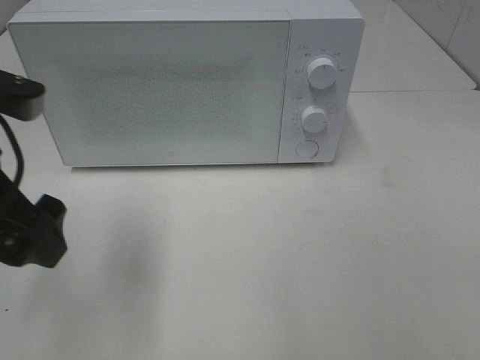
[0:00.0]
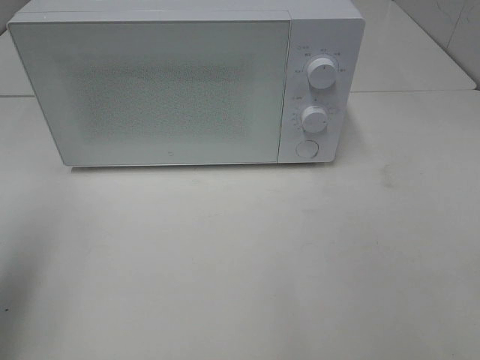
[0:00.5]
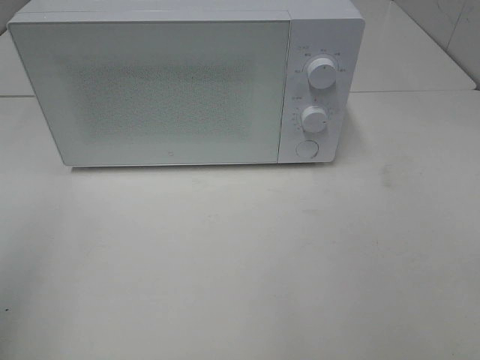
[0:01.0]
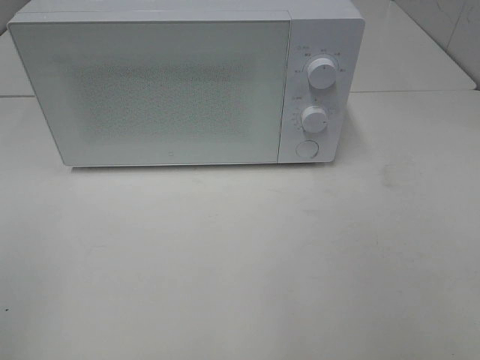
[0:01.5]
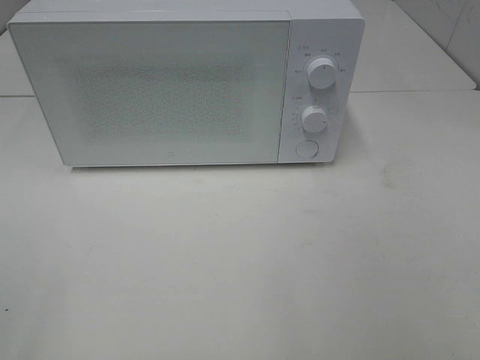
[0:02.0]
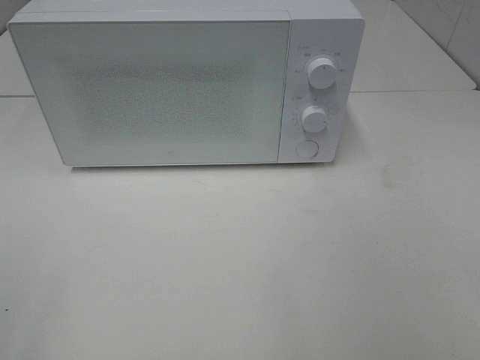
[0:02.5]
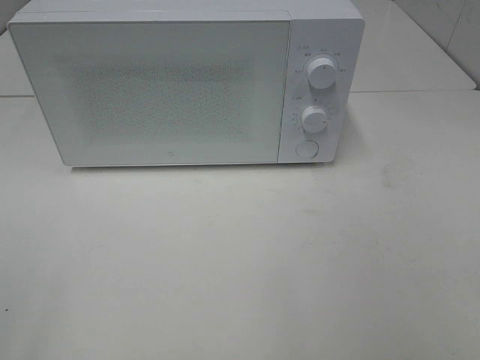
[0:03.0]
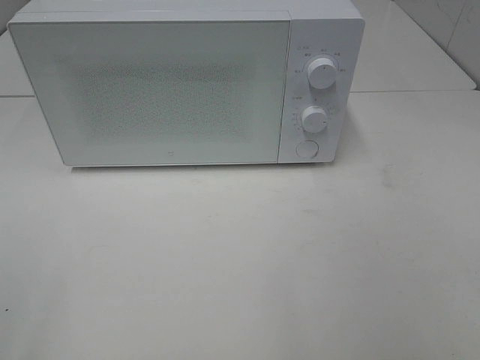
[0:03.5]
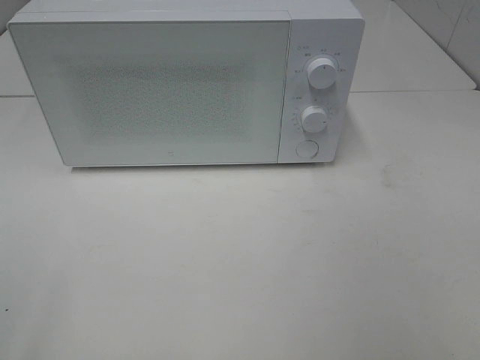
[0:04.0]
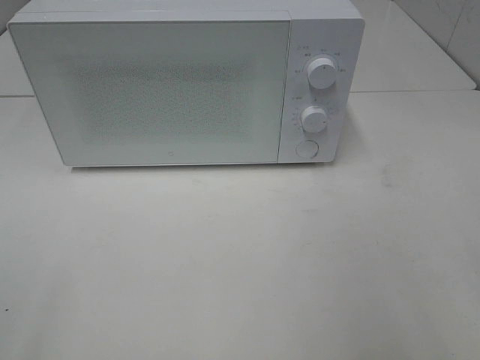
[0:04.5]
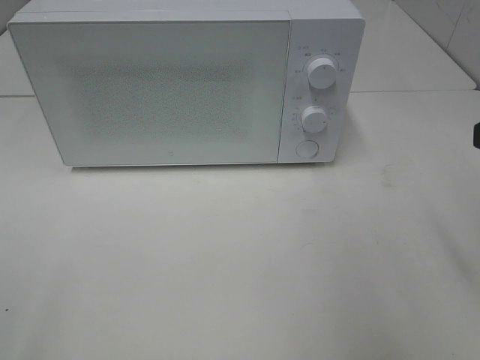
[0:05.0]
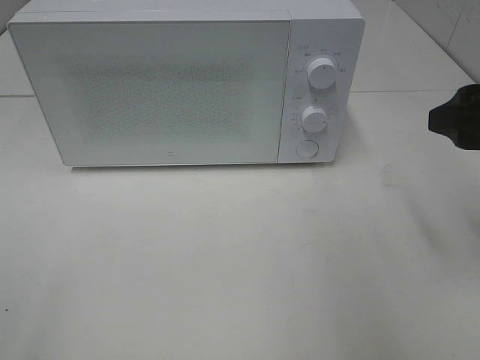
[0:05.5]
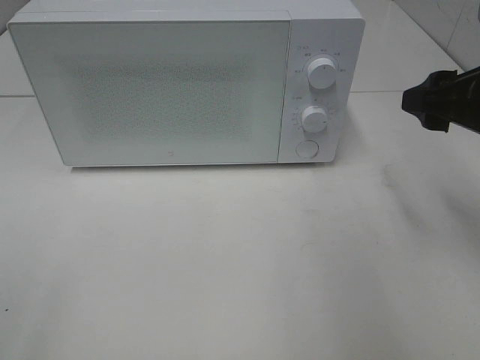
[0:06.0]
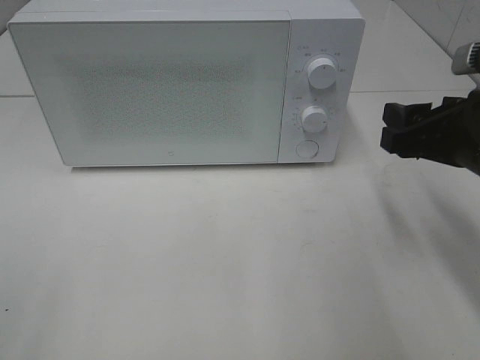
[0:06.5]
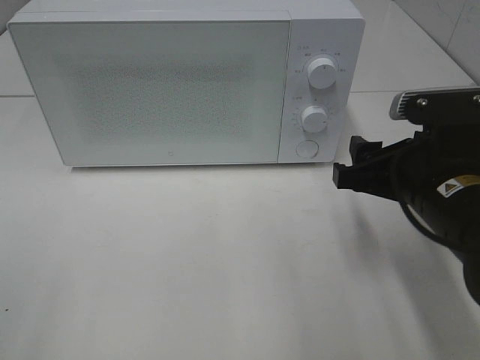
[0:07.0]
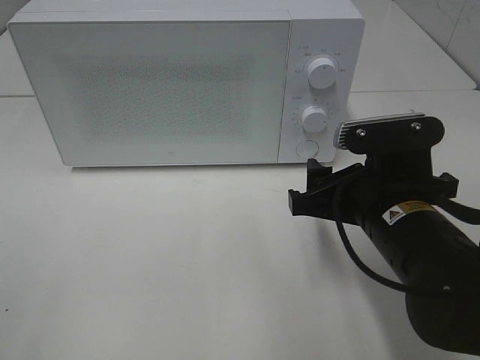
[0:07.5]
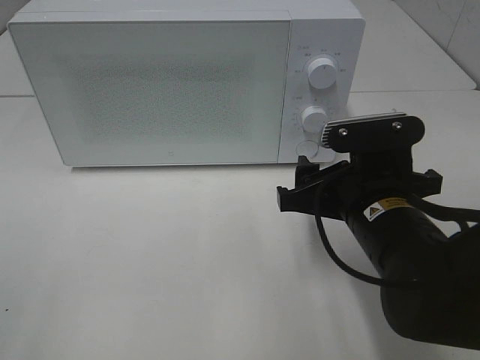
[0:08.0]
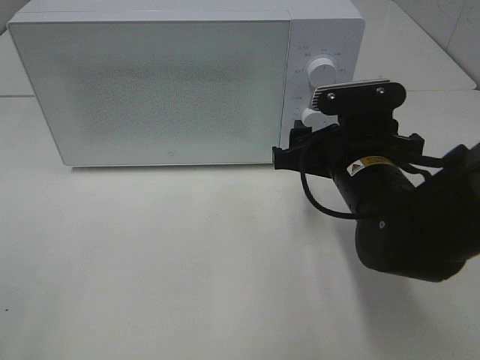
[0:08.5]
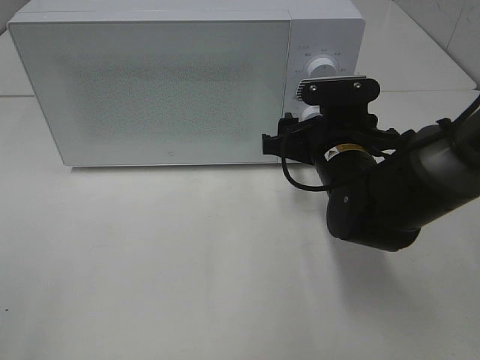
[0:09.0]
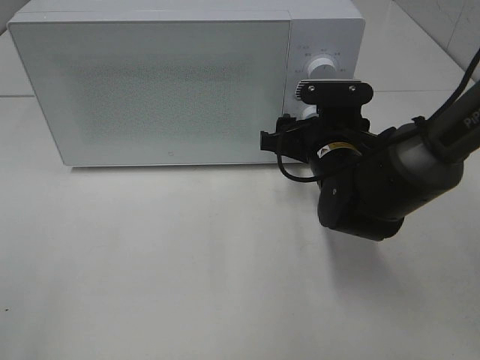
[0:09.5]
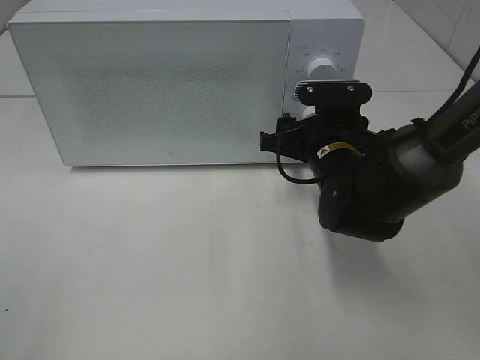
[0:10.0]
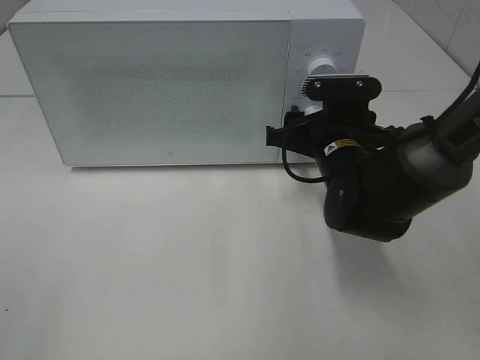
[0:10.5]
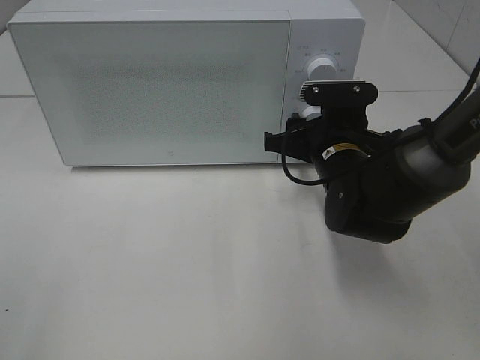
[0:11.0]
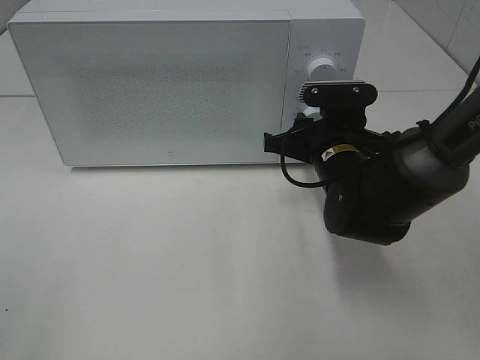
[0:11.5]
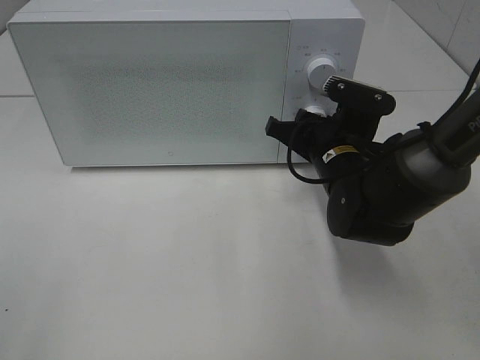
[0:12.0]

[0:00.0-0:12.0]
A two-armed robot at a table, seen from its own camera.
Task of the whole recording: Heat the burger.
0:00.0 to 0:02.0: The left gripper is displaced backward and to the left by about 25 cm.
0:04.0 to 0:06.0: The right gripper heads forward, covering approximately 20 cm.
0:06.0 to 0:08.0: The right gripper shifts some 15 cm to the left and downward.
0:08.0 to 0:10.0: The right gripper travels forward by about 10 cm.
0:10.0 to 0:12.0: The right gripper closes its fingers.

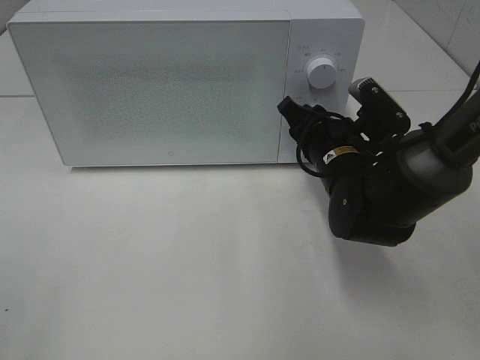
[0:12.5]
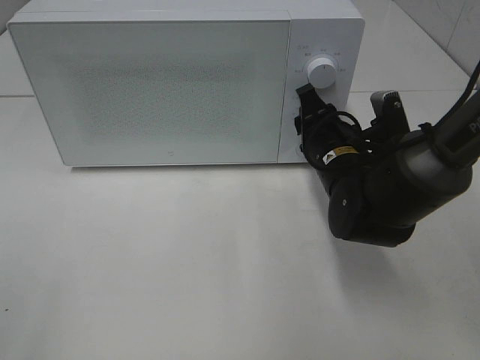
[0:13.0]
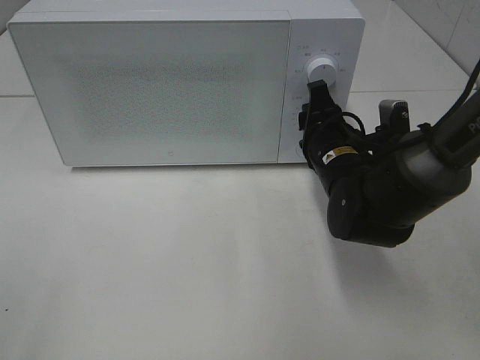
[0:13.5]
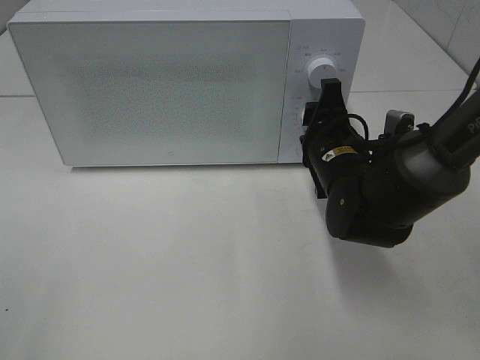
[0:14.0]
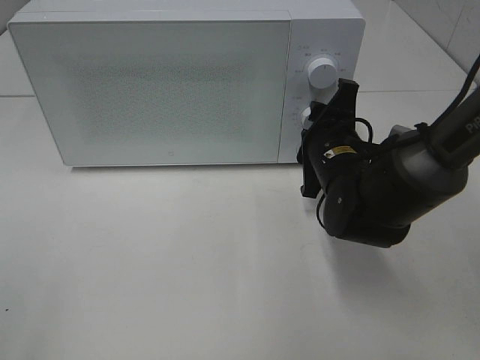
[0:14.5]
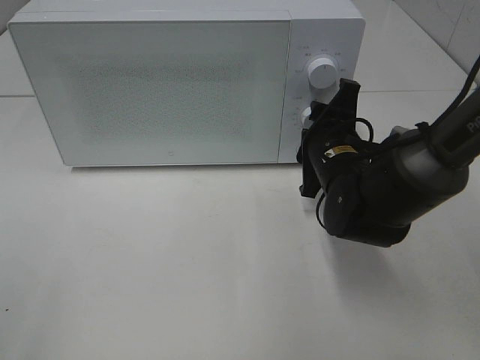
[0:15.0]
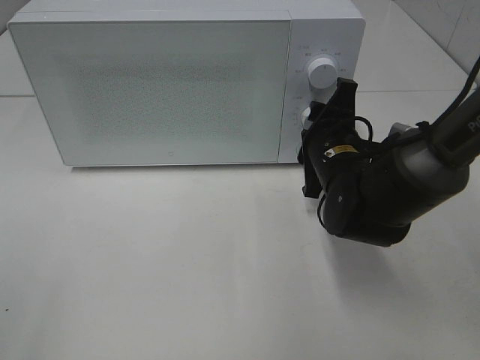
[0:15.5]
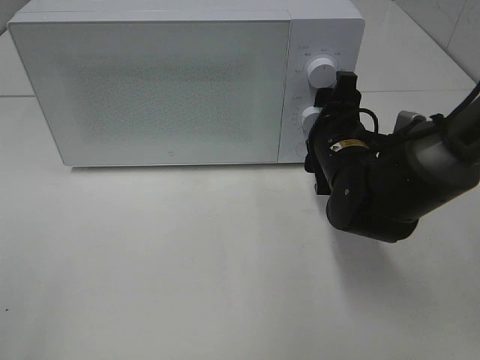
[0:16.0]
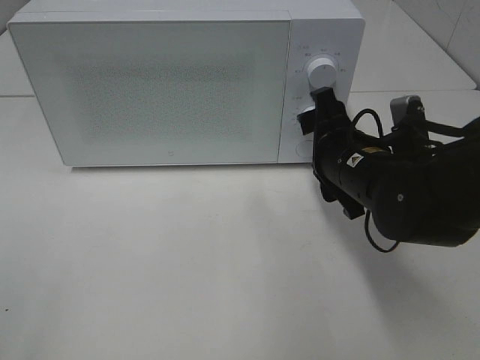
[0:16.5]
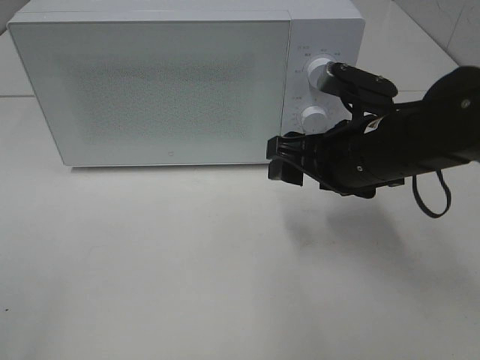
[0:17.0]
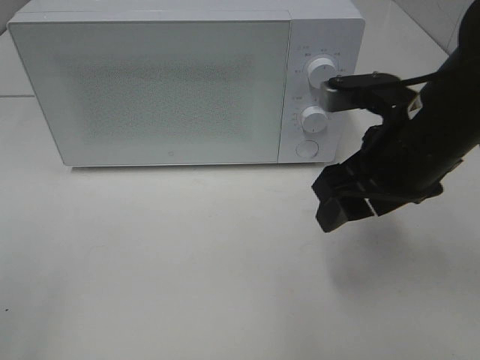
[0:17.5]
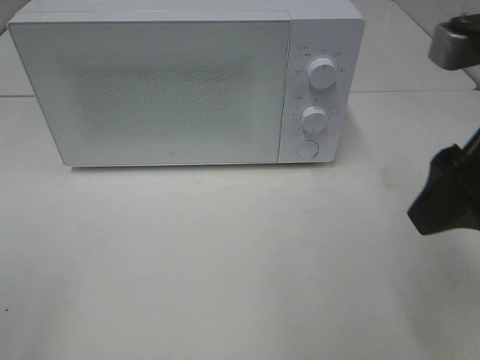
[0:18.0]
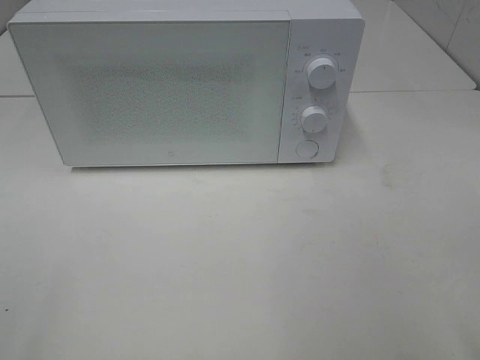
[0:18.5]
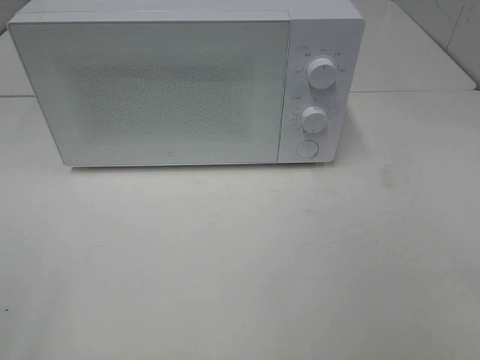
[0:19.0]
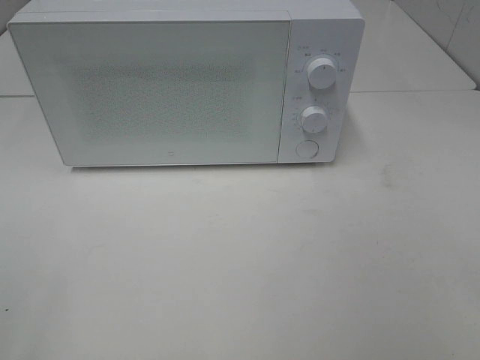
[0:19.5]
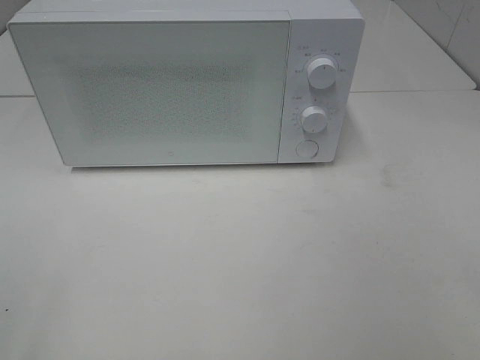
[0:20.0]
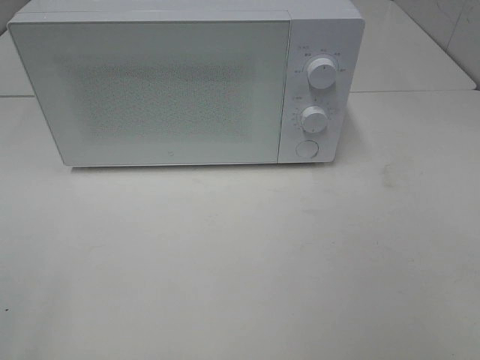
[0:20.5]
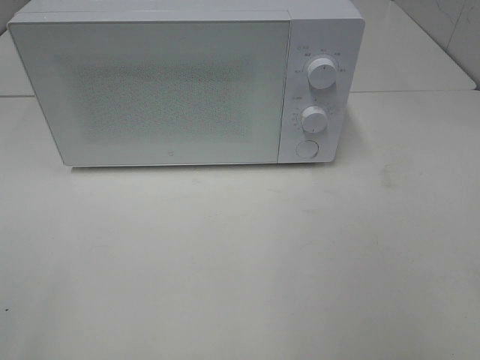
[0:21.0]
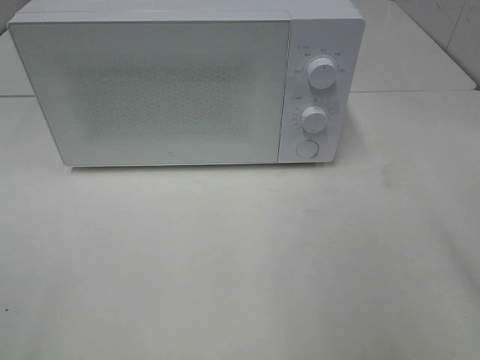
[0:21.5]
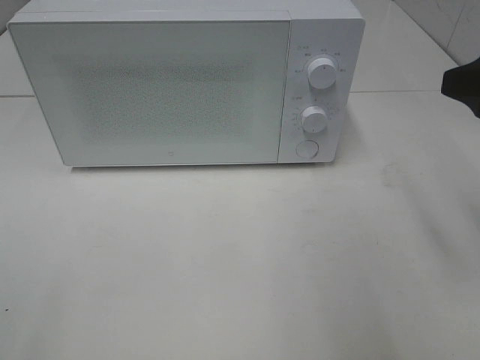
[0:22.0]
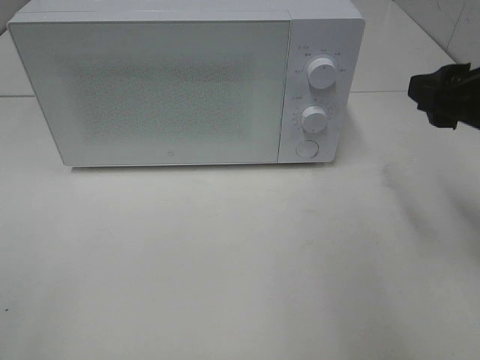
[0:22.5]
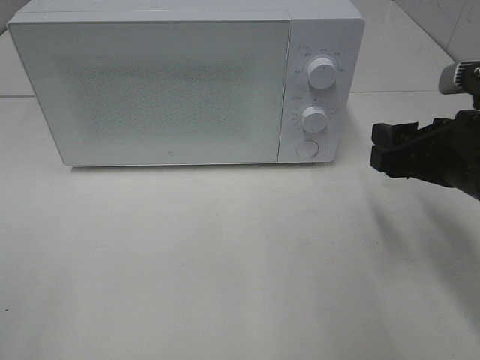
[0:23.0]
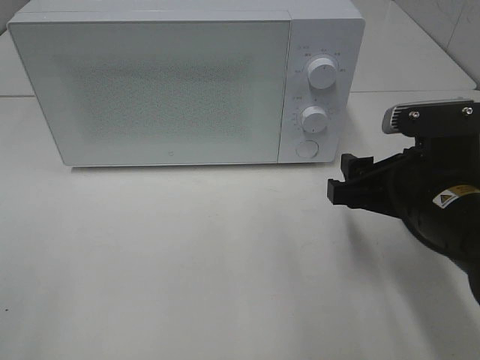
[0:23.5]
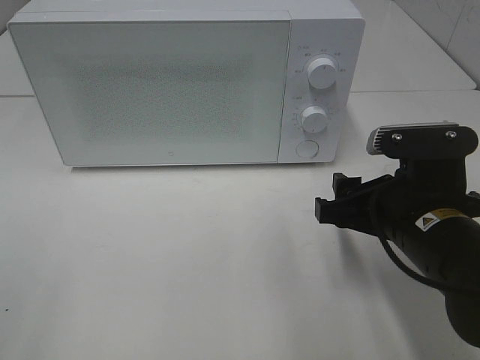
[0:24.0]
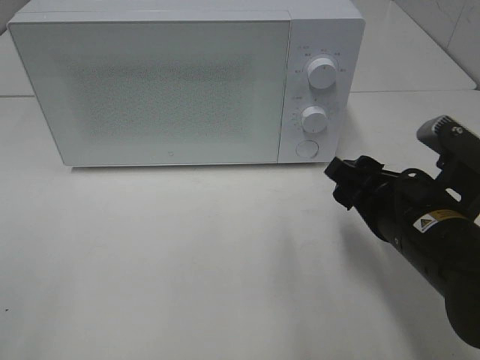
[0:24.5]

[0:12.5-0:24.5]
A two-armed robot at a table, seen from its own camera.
Task of the whole recording: Heat the burger.
Step, 0:12.5 to 0:16.0: Right hand: twist timer button.
0:14.5 to 0:16.5: The right gripper moves about 5 cm, and opens its fingers.
0:16.5 to 0:18.5: The right gripper is displaced backward, upward and to the right by approximately 30 cm.
0:20.5 to 0:22.5: The right gripper shifts about 20 cm forward.
0:22.5 to 0:24.5: The right gripper shifts about 15 cm downward and to the left.

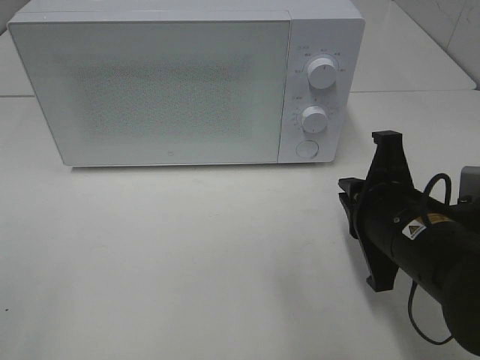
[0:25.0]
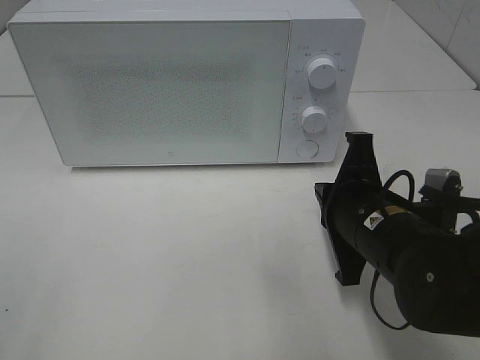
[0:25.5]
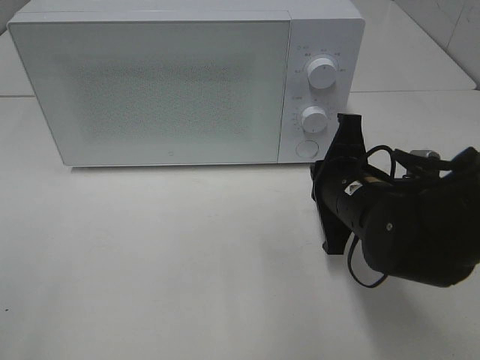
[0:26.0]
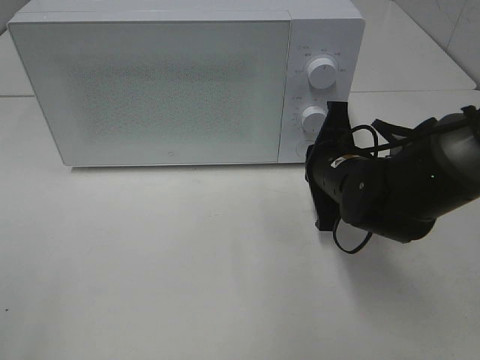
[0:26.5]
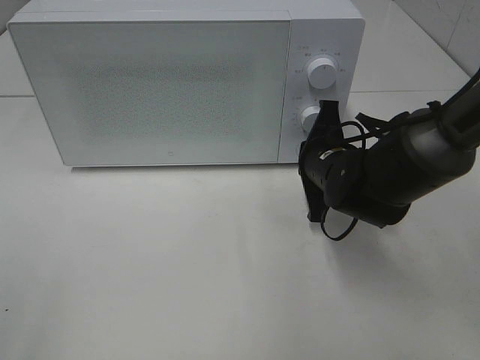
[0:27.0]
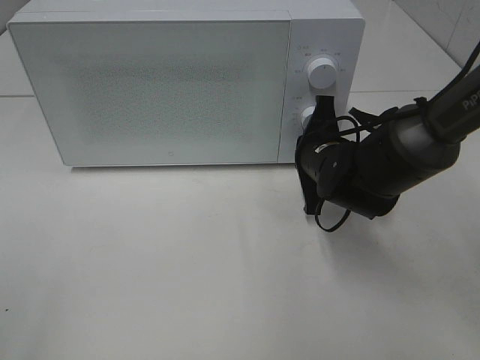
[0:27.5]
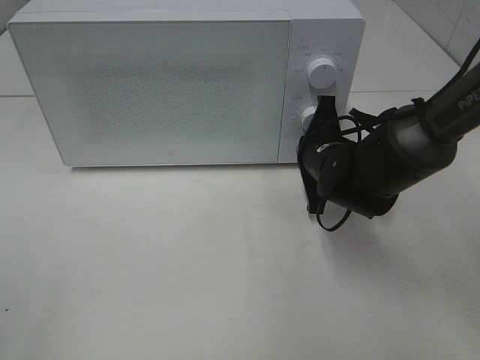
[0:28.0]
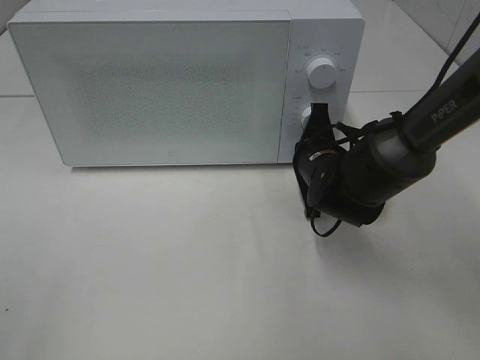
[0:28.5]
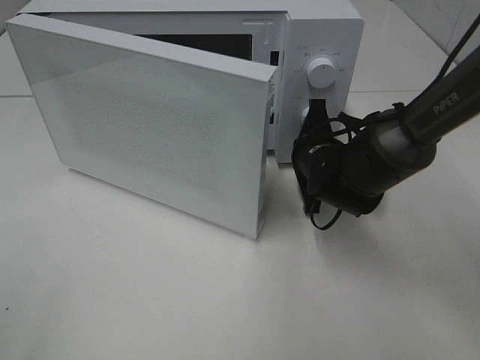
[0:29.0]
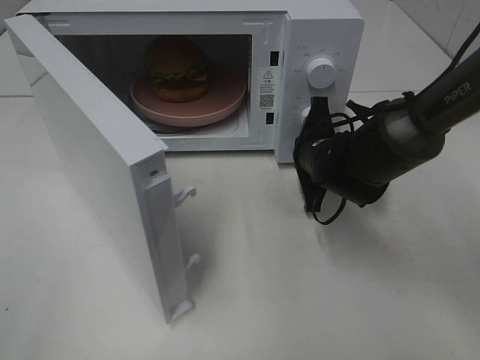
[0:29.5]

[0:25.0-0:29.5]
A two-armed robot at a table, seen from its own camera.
Task of the whole recording: Heat the burger.
0:25.0 to 0:27.0: The right gripper moves forward, roughly 15 cm.
